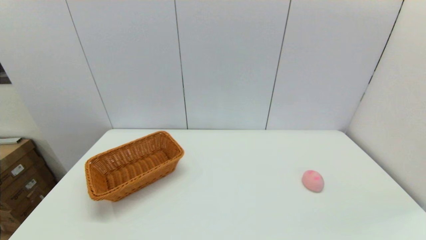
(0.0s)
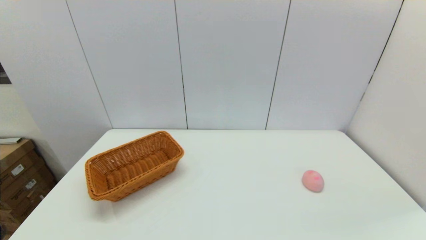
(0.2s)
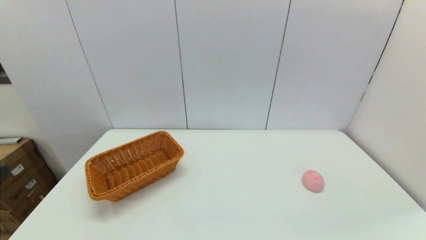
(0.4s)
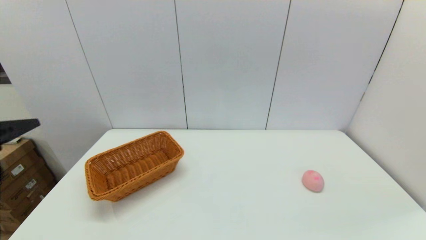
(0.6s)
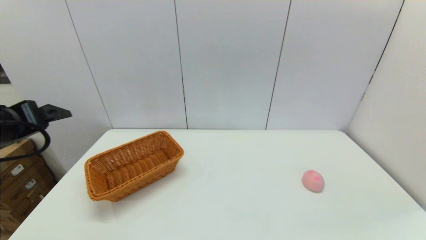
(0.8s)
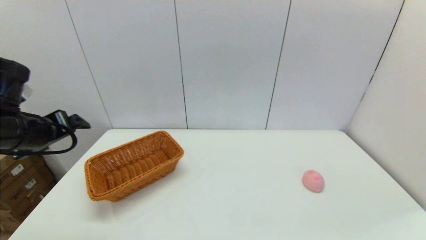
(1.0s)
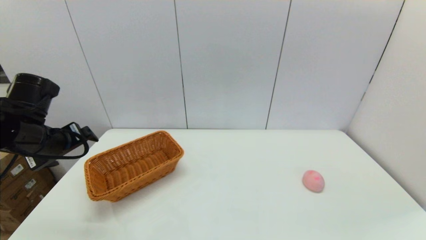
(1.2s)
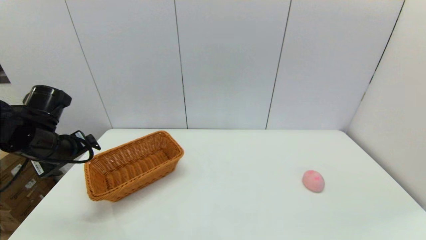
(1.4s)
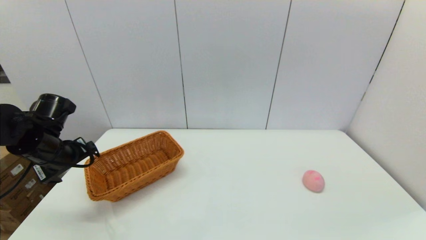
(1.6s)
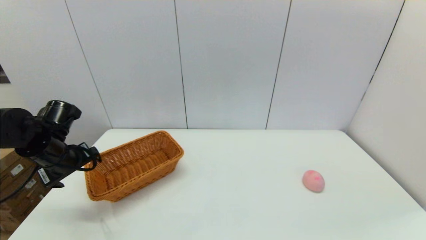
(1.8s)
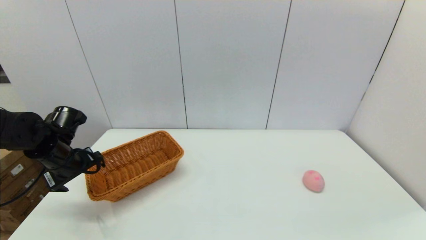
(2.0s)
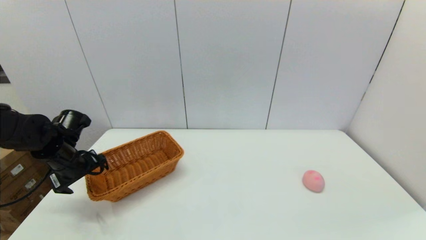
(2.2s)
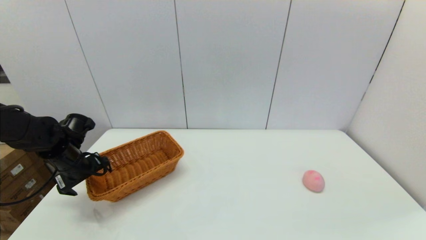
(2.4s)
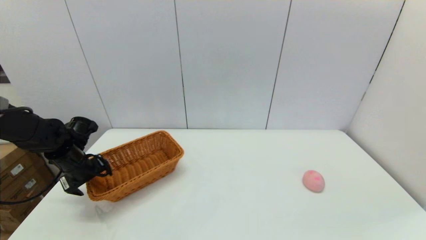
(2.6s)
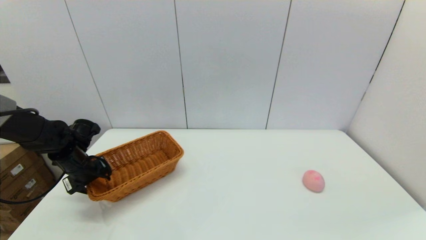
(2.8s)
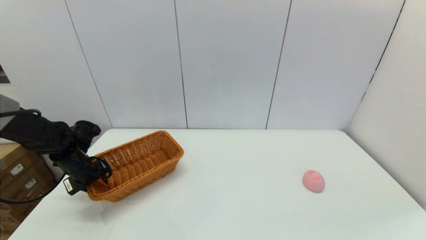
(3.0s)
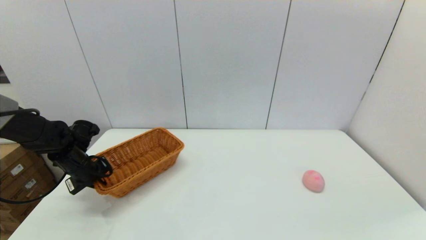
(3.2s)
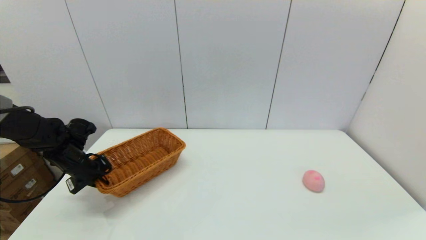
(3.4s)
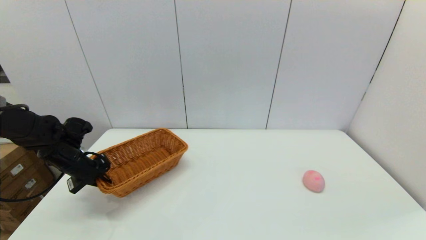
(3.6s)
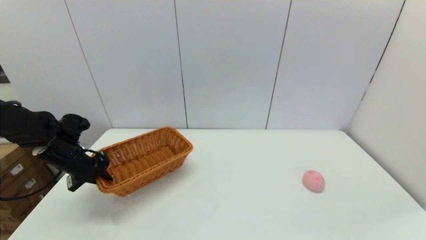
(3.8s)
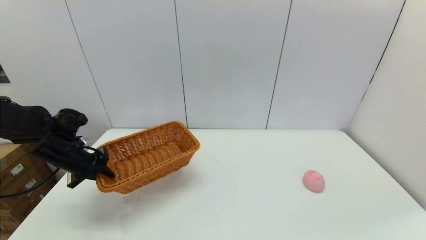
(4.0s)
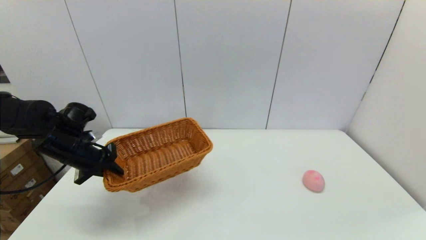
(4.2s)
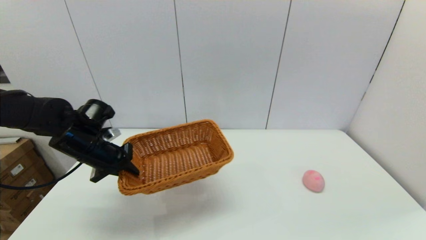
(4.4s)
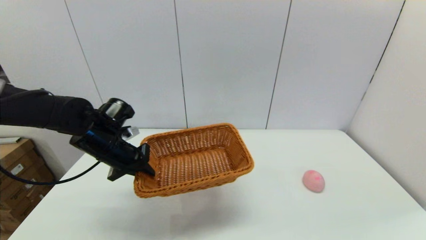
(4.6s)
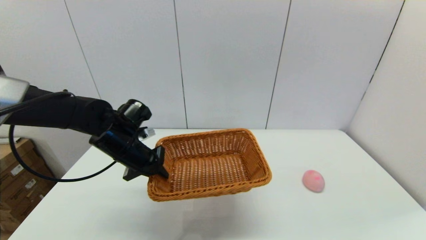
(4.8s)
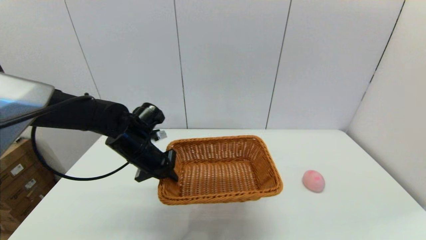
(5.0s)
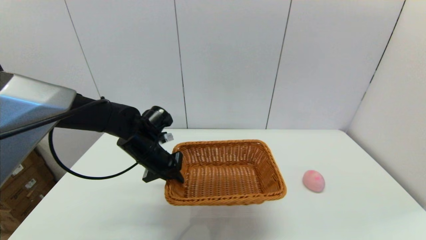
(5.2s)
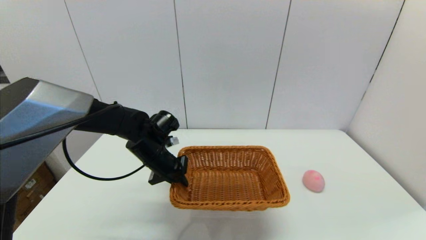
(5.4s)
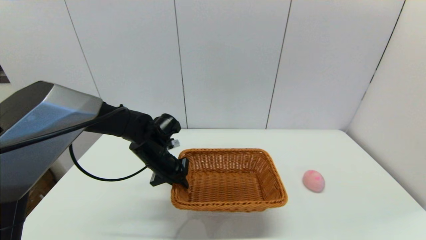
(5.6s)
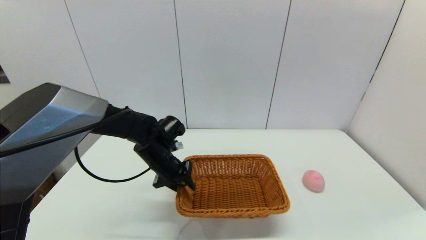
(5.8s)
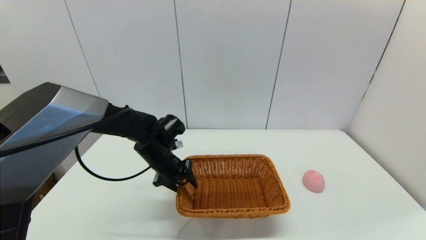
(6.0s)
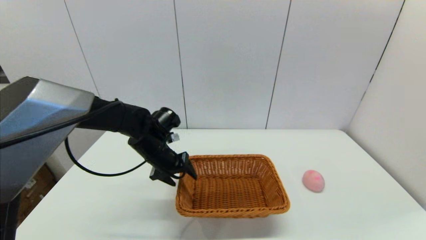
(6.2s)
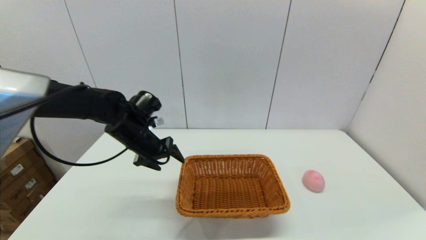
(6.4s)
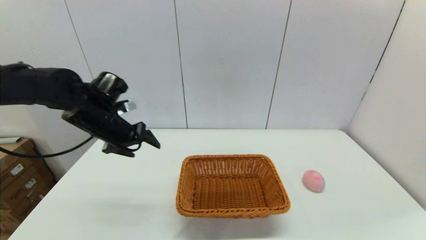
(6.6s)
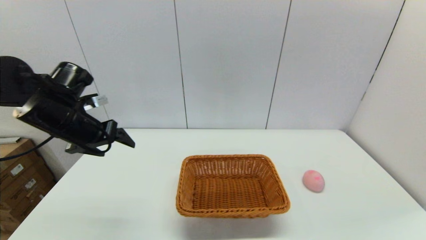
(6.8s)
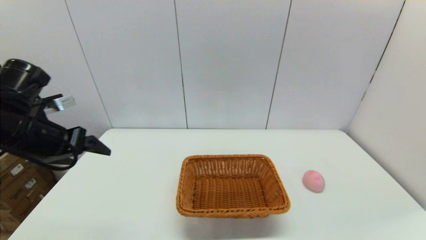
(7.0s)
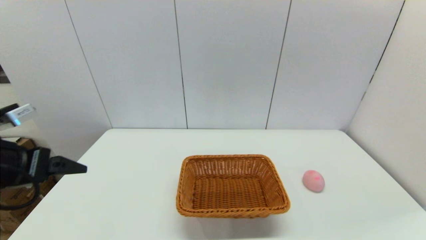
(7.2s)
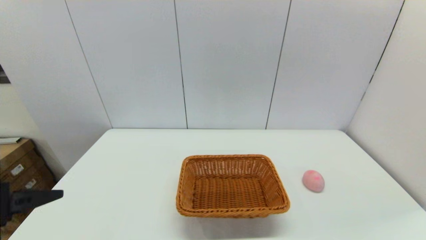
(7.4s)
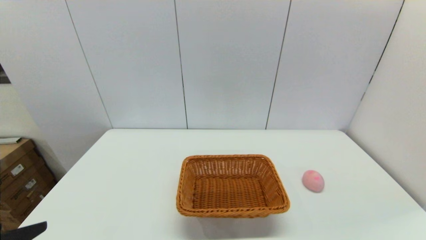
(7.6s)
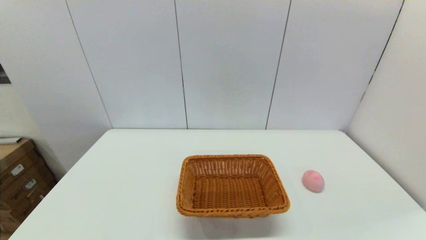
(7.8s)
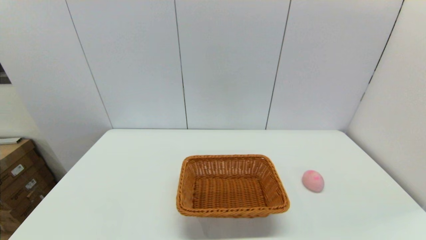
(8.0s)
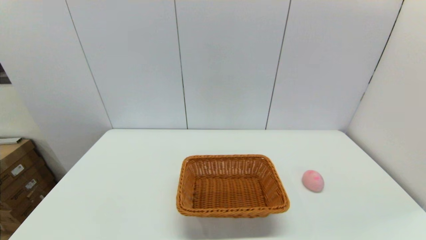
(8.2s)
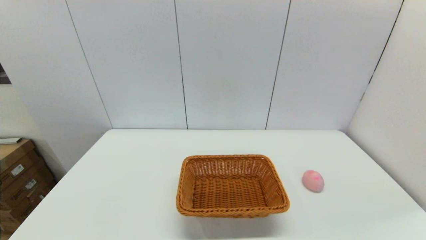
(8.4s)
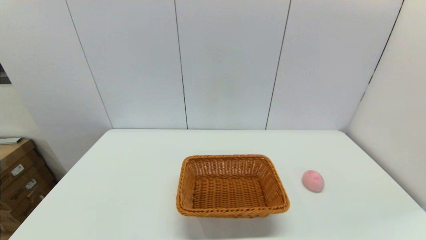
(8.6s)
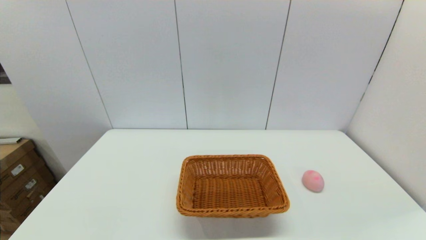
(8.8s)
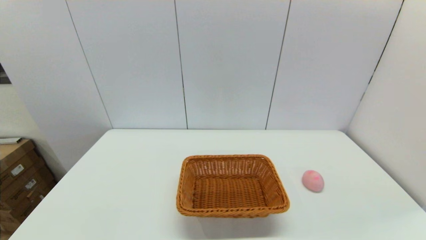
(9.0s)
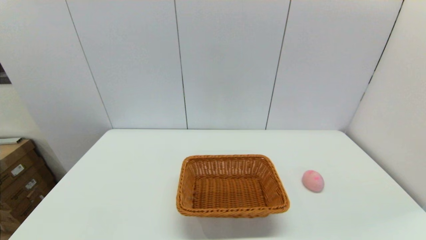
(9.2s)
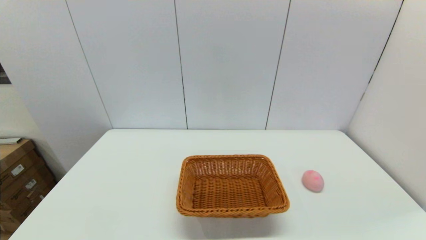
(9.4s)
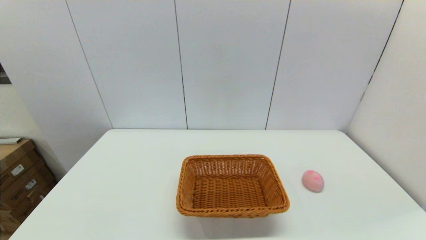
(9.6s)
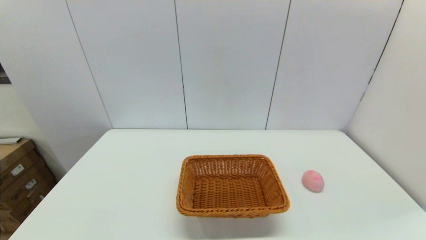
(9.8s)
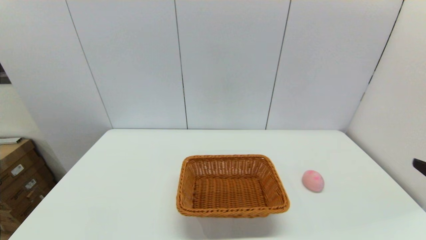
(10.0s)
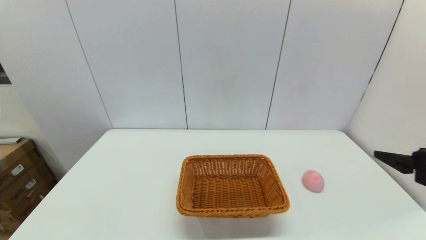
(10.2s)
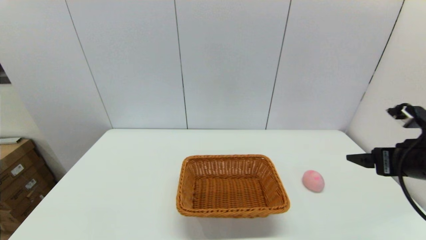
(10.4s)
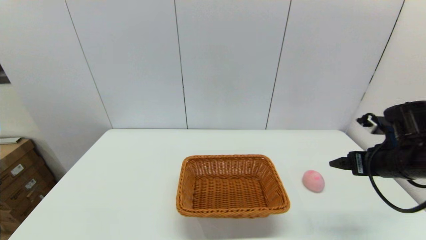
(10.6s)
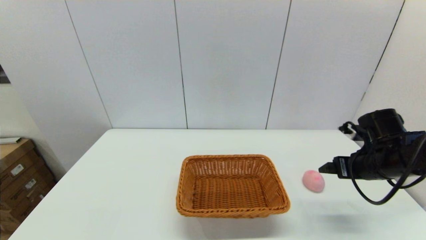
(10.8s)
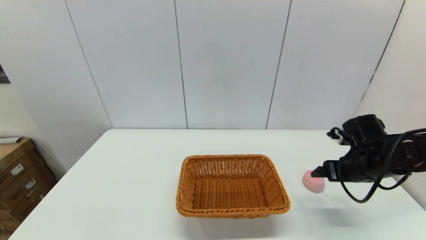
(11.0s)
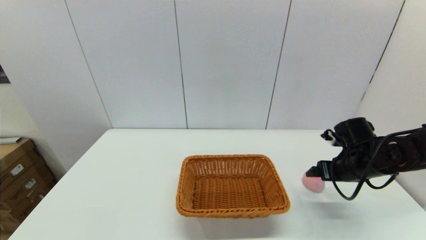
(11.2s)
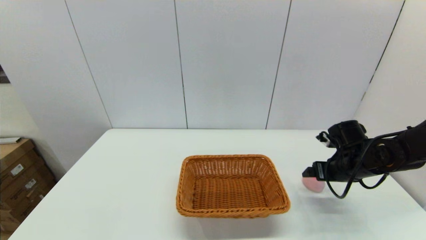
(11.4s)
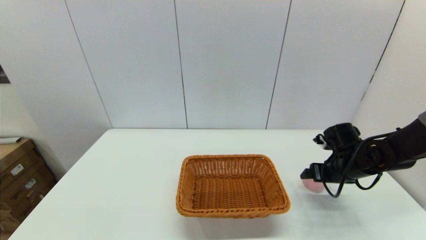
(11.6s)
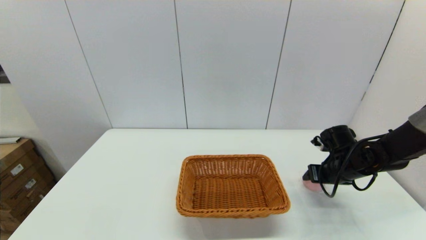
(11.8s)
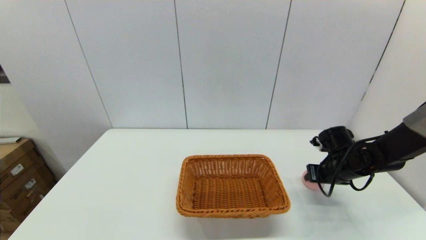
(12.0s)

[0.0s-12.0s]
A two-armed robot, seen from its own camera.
Step, 0.0s to 3.0s: Grasp the light basket with the left gripper.
Step, 3.4s to 6.0s: Place the light basket on the middle of the table with the left gripper.
0.0s to 1.6s: The left gripper heads forward, covering about 30 cm.
1.6s to 3.0s: The left gripper goes some 10 cm downward and forward, and closes up.
3.0s to 4.4s: The left gripper goes some 10 cm to the right and upward.
4.4s to 6.0s: The left gripper shifts roughly 15 cm to the right and downward, and opens.
6.0s to 7.6s: The left gripper heads backward, to the left and upward, covering approximately 35 cm, and opens up.
9.0s to 10.4s: The right gripper moves forward and upward, about 25 cm.
10.4s to 12.0s: The right gripper moves downward and forward, roughly 20 cm, and closes.

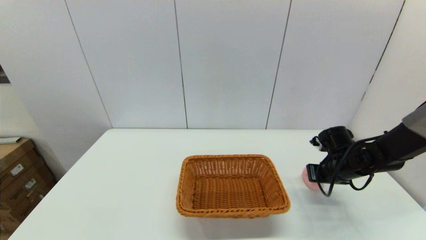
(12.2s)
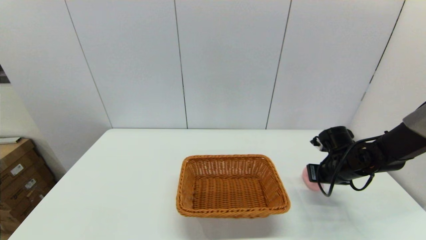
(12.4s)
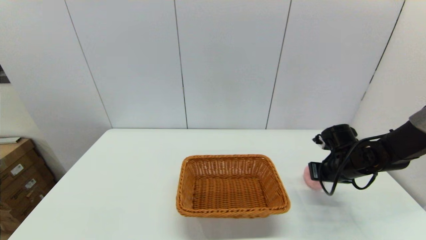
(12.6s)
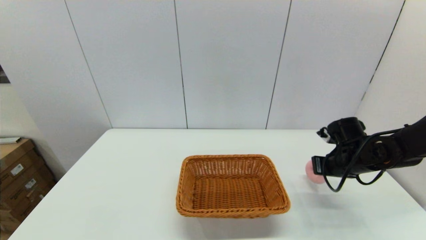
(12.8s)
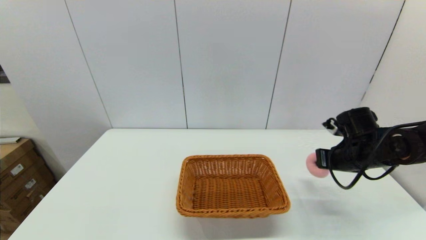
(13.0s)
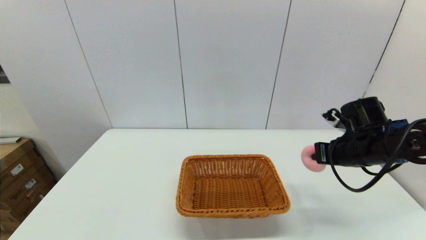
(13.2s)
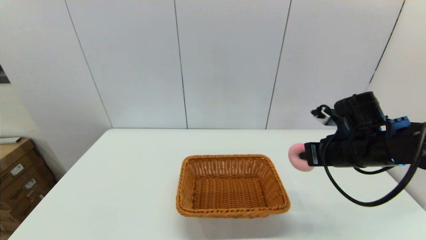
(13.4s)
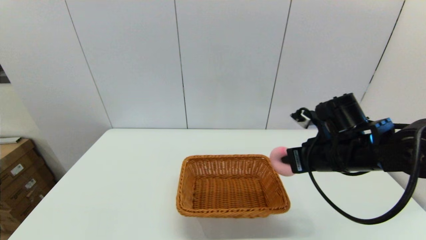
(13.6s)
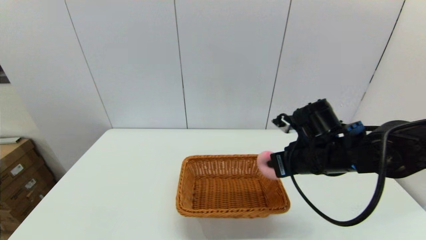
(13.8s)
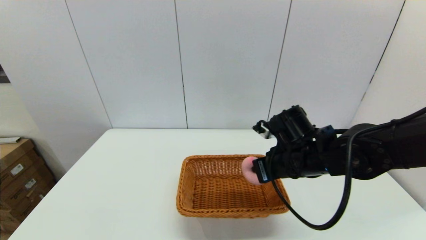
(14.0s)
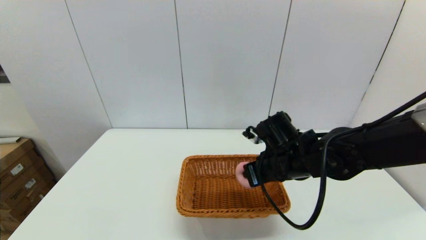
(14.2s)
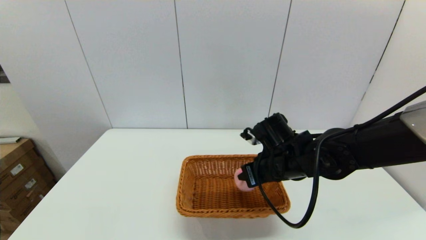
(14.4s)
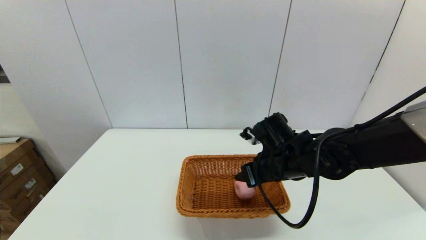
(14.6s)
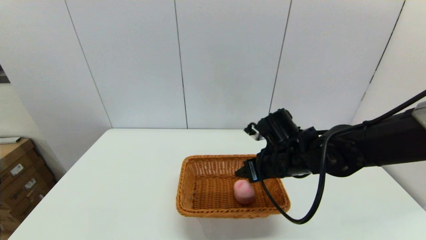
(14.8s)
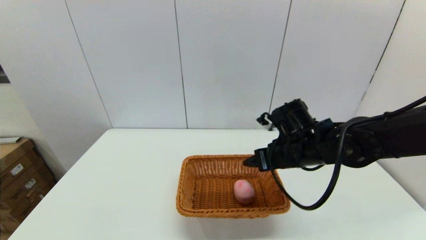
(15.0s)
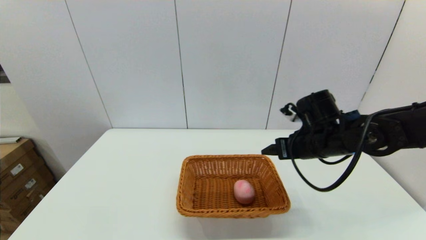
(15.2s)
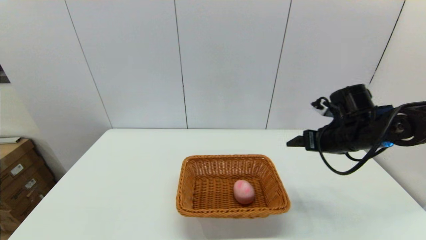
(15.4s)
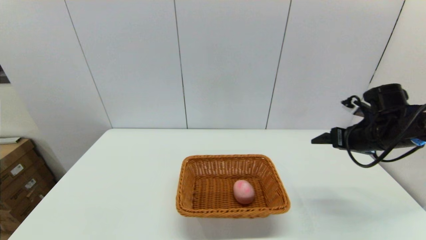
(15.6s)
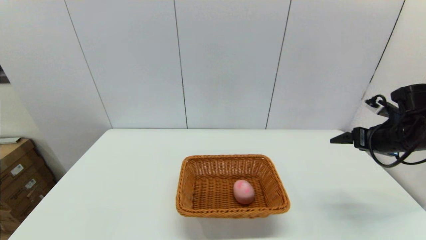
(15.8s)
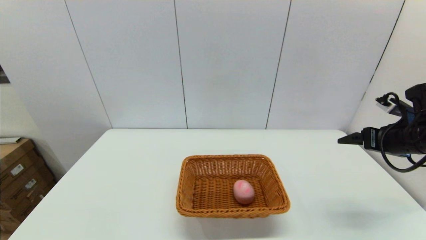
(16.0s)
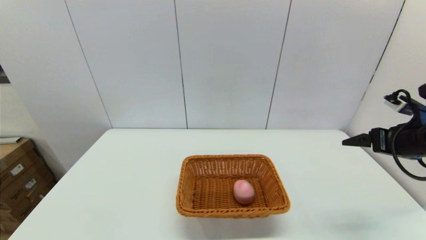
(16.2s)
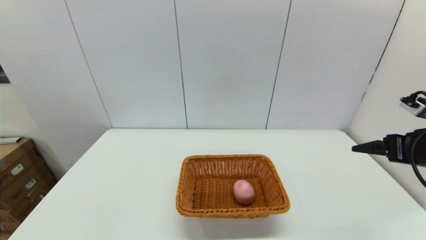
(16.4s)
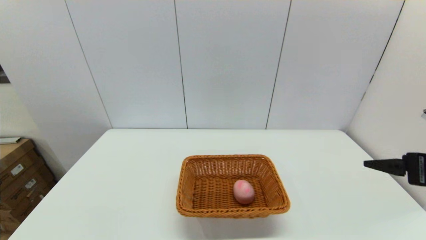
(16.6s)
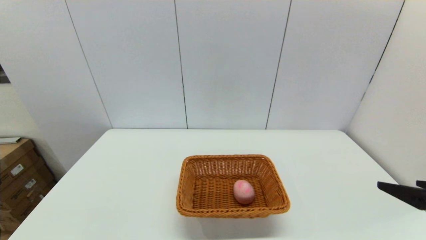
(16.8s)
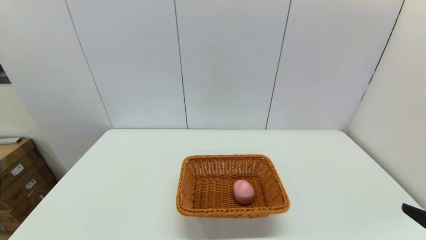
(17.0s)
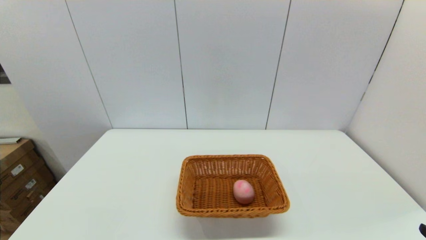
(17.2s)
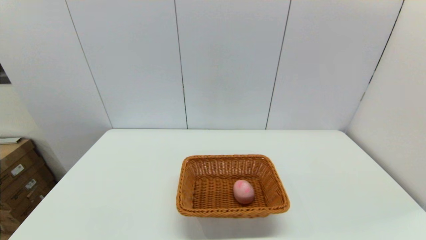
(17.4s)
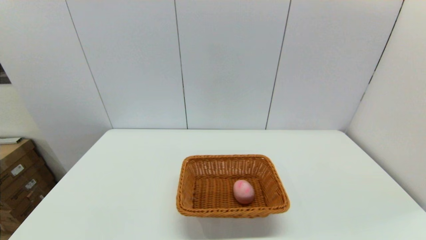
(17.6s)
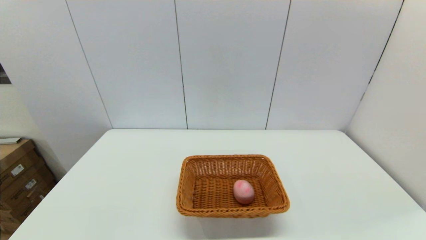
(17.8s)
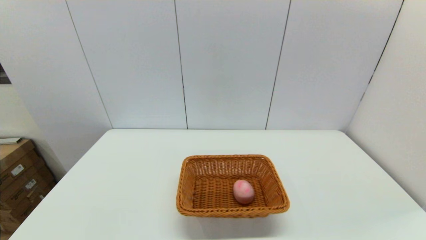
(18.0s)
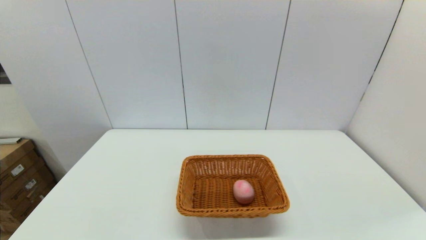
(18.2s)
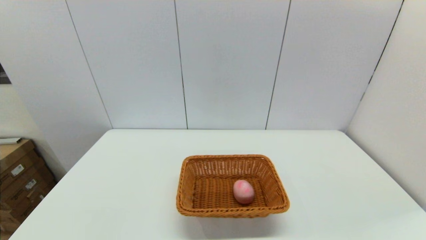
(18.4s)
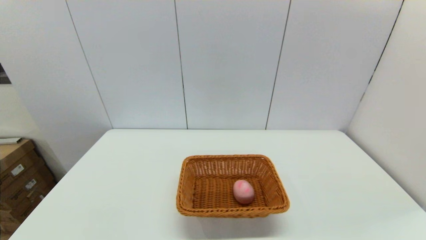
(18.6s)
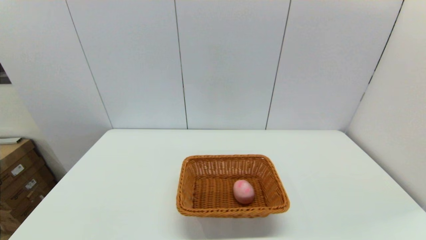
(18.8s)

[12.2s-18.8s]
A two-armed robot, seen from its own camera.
Step, 12.4s to 14.8s: Place the peach into the light basket with the right gripper.
12.2s to 13.8s: The right gripper shifts roughly 20 cm to the left, upward and backward.
13.8s to 15.4s: The right gripper shifts roughly 10 cm to the right, and opens up.
15.4s to 17.2s: The right gripper heads backward, covering roughly 30 cm.
